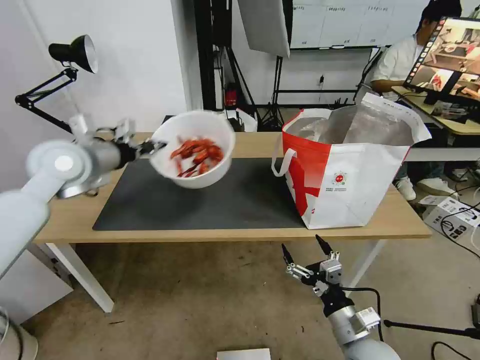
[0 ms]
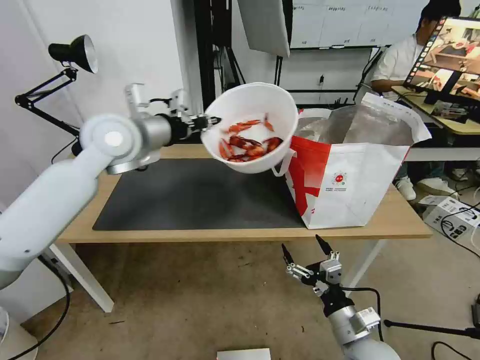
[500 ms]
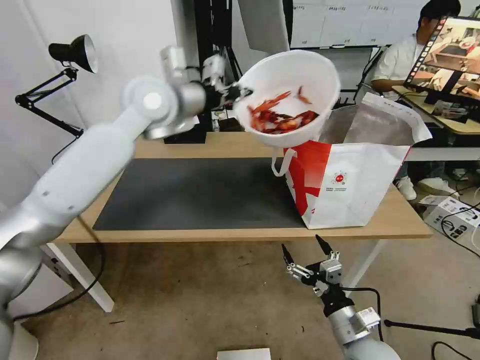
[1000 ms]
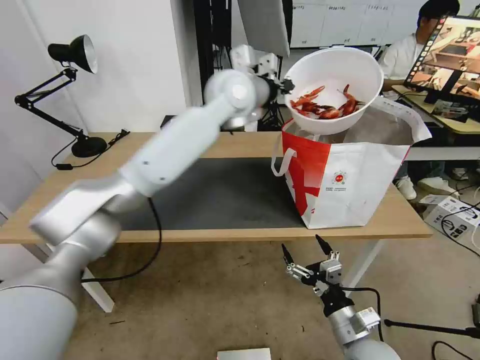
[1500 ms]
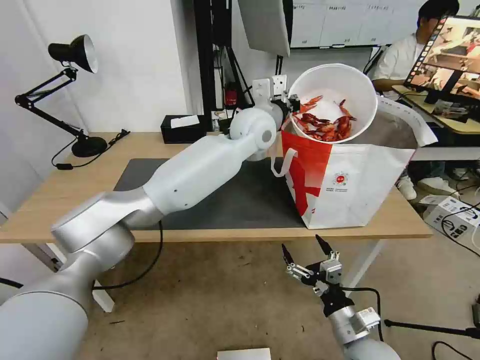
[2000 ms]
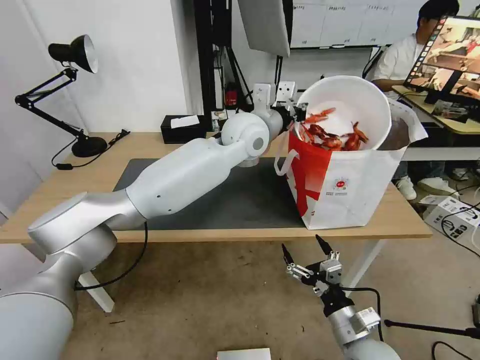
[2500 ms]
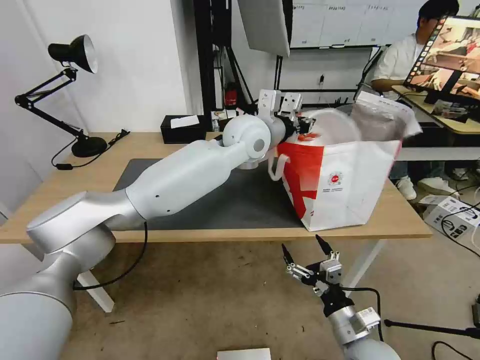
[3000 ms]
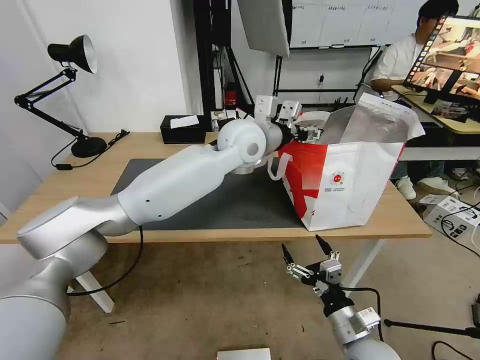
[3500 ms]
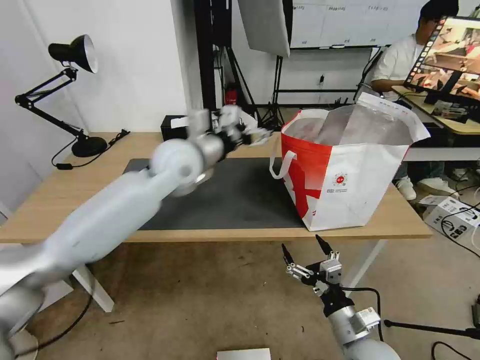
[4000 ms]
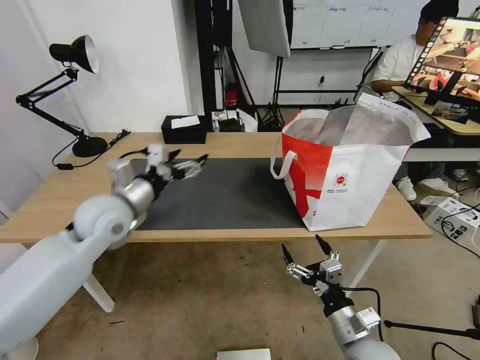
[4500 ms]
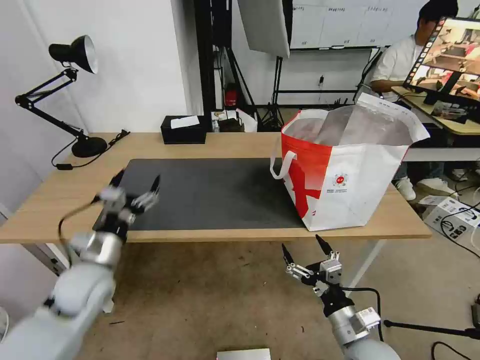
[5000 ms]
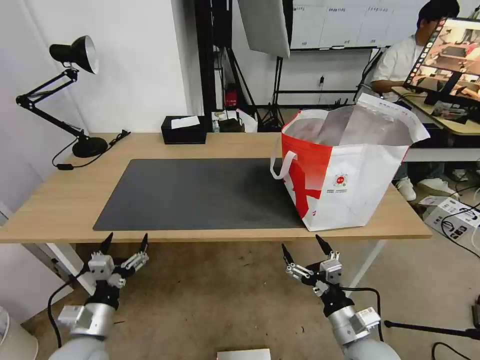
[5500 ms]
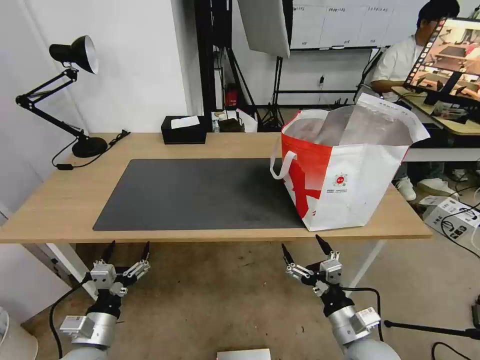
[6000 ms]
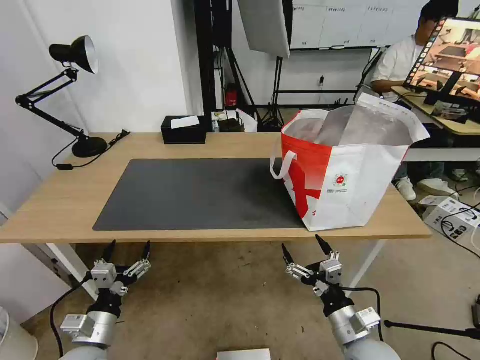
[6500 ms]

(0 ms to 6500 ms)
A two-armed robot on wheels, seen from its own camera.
Task of the whole recording: Pick up the trash from the table and place it into the takeout bag.
0 ms - 2000 ms: The left gripper is displaced to the right by about 35 cm.
2000 ms - 4500 ms: The left gripper is displaced to the left and backward by some 35 cm, and opens up.
4500 ms - 6500 ms: The left gripper heads backward and downward, covering approximately 30 cm.

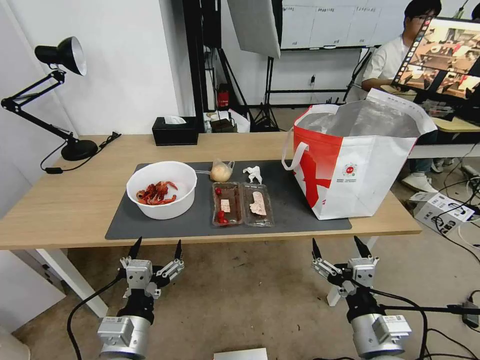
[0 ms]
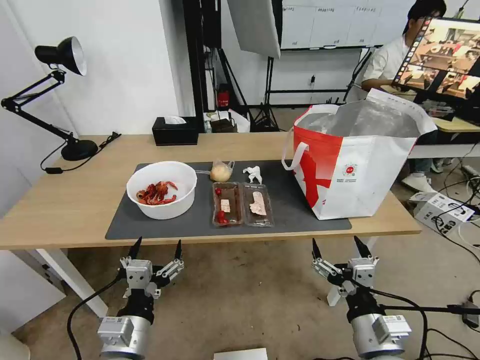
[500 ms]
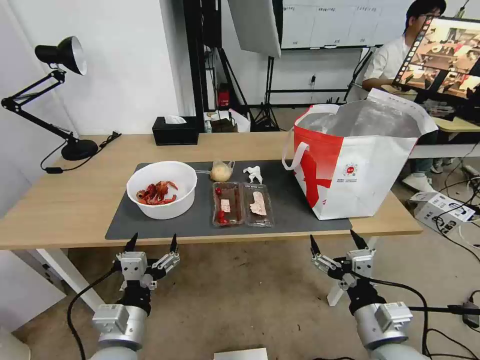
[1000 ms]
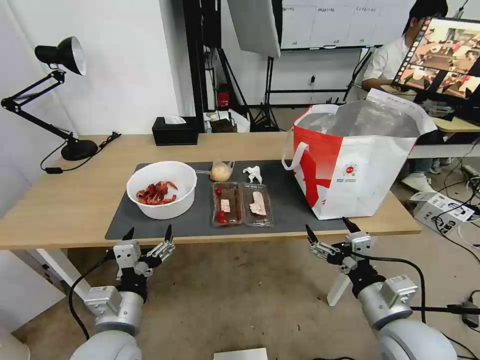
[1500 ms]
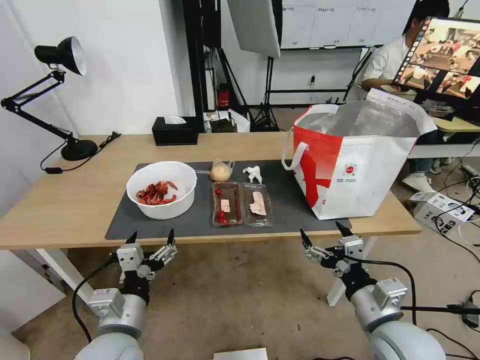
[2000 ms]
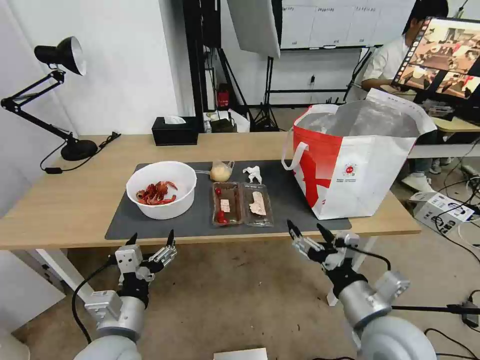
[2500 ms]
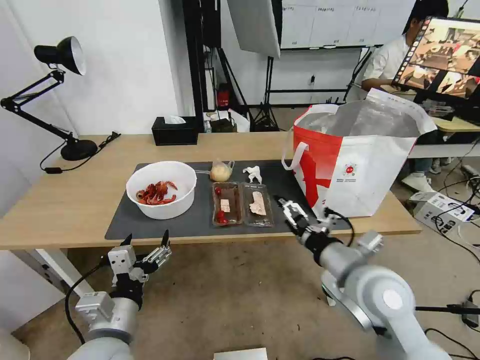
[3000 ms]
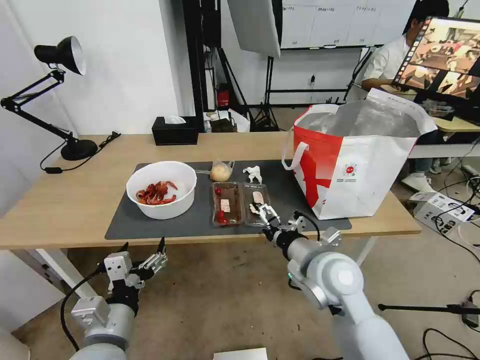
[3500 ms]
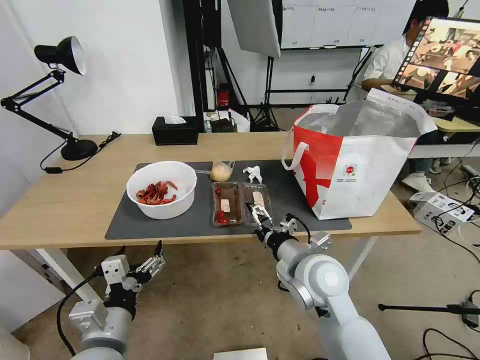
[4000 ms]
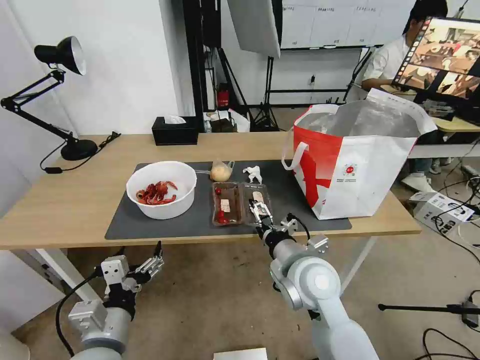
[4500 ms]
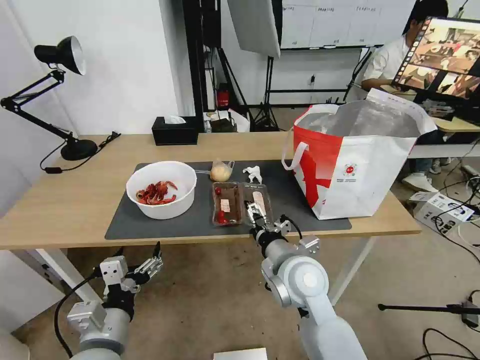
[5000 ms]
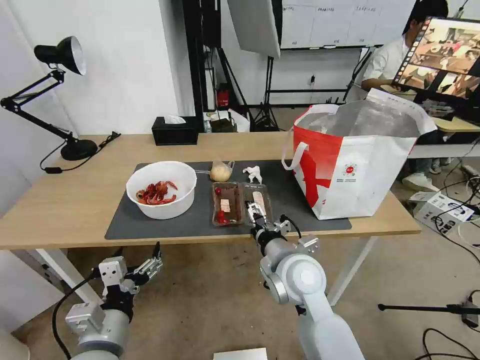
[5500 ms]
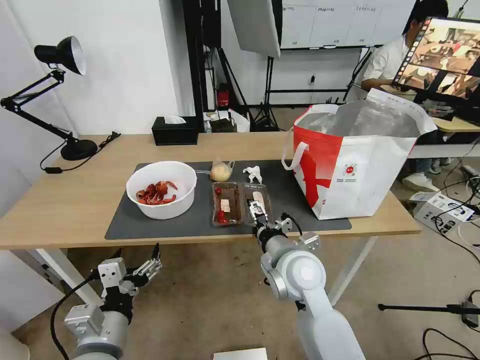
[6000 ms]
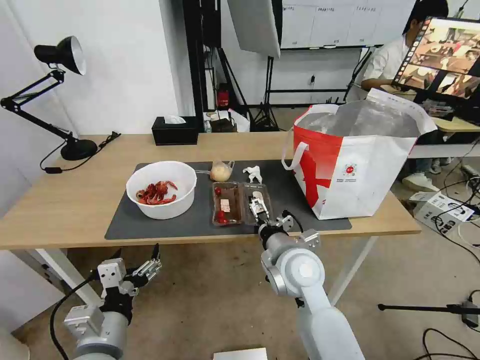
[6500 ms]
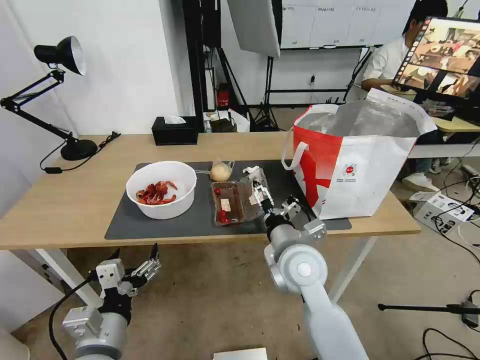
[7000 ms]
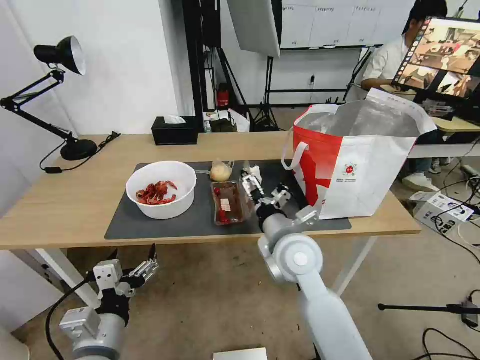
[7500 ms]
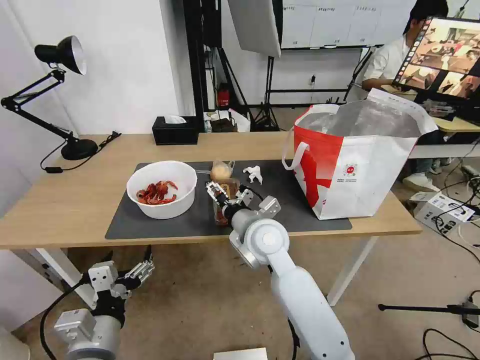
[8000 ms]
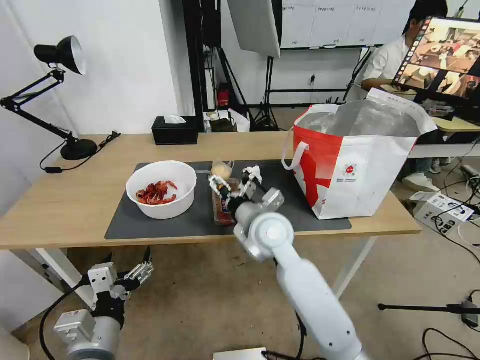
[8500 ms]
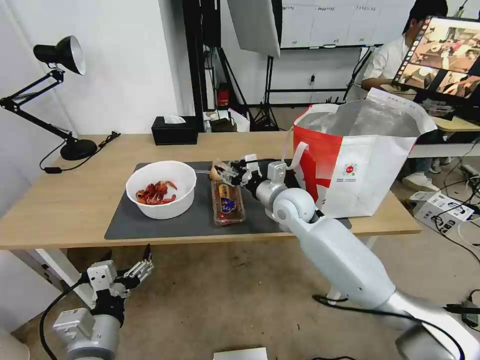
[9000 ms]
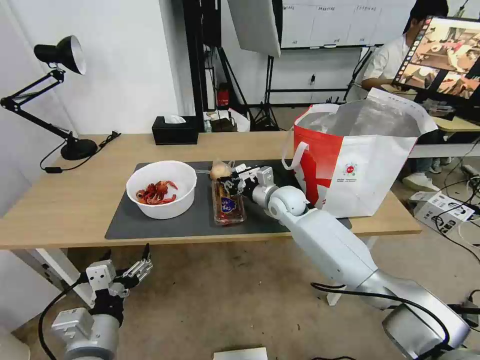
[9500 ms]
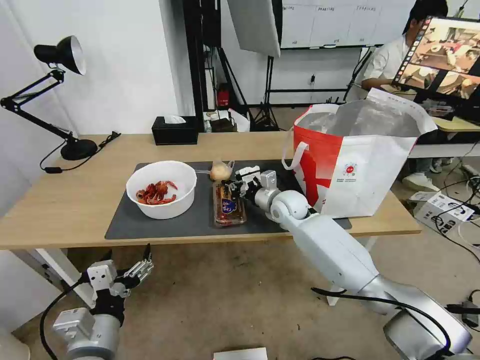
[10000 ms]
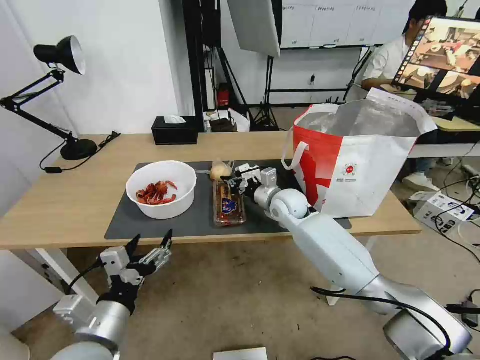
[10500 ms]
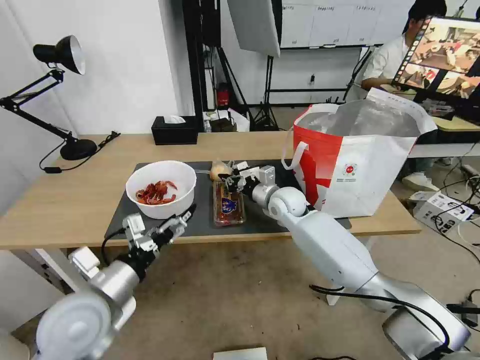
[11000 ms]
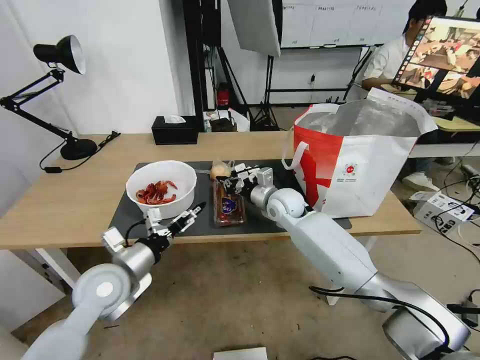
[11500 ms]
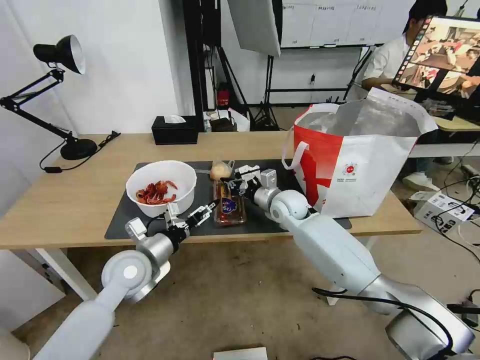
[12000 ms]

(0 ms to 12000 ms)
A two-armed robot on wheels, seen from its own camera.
Task of the whole recording: Pick up the trash from the table and place it into the takeout bag.
2000 ms - 4000 ms: The right gripper heads to the left and forward, covering about 15 cm.
4000 ms - 6000 ms: There are only small adjustments of the grippers.
6000 ms - 8000 ms: The right gripper heads forward and to the left, covering roughly 10 cm.
8000 ms - 10000 ms: The right gripper is displaced forward, to the right and downward by approximately 20 cm, and closes.
10000 ms - 12000 ms: The left gripper is displaced forward by roughly 20 cm.

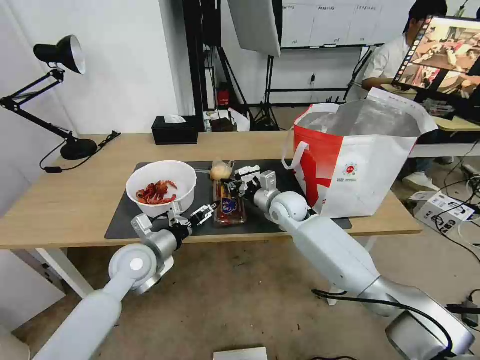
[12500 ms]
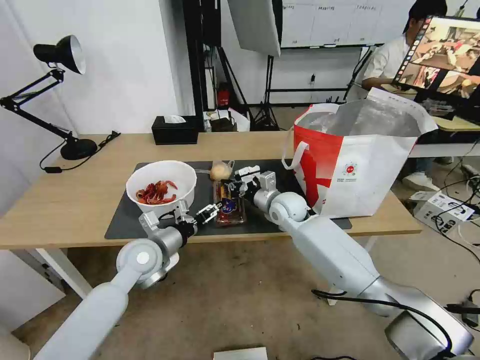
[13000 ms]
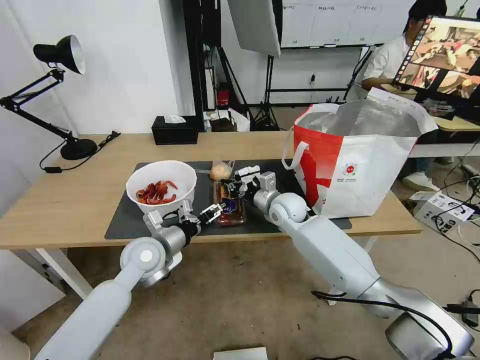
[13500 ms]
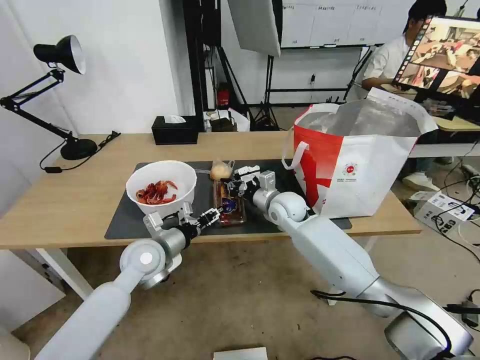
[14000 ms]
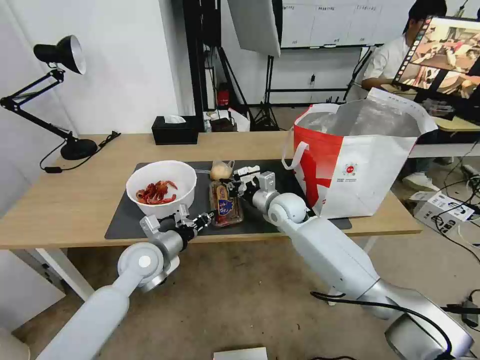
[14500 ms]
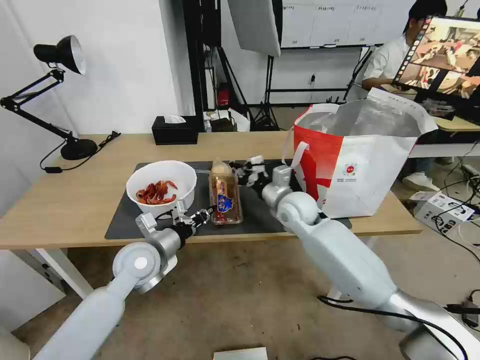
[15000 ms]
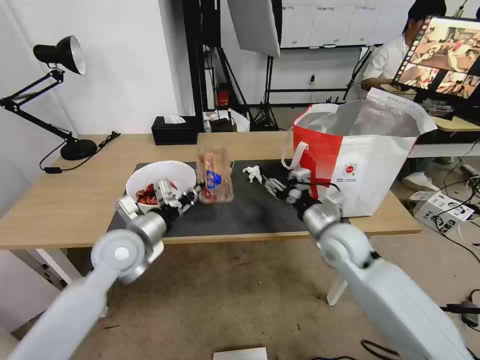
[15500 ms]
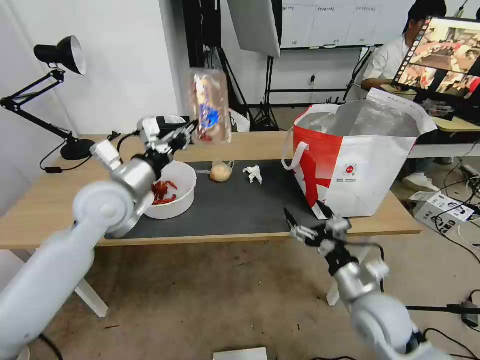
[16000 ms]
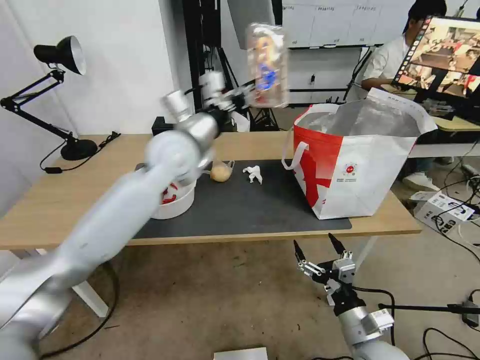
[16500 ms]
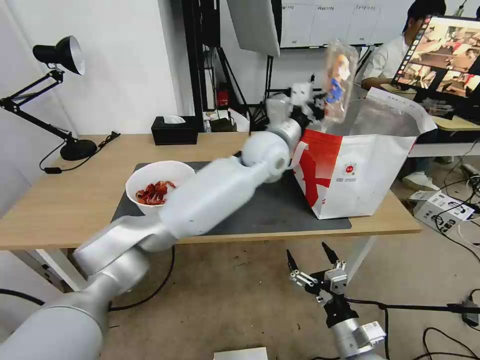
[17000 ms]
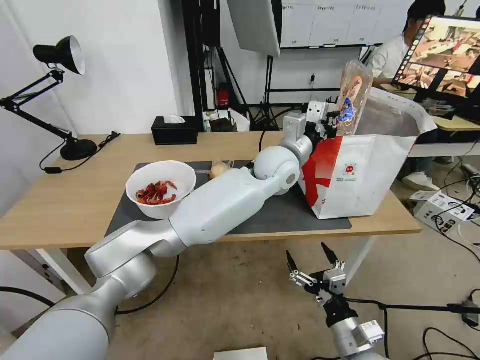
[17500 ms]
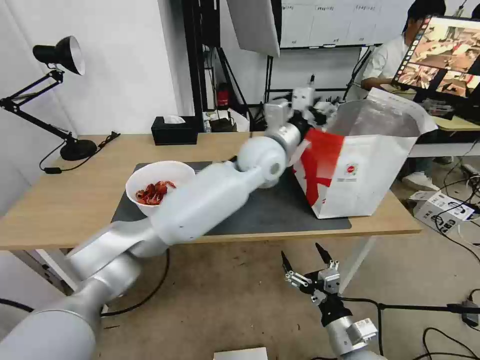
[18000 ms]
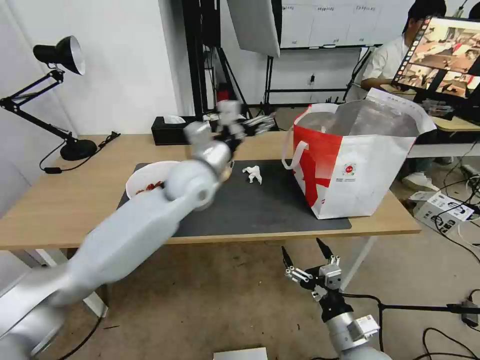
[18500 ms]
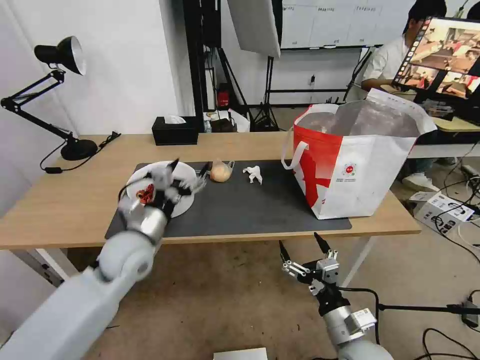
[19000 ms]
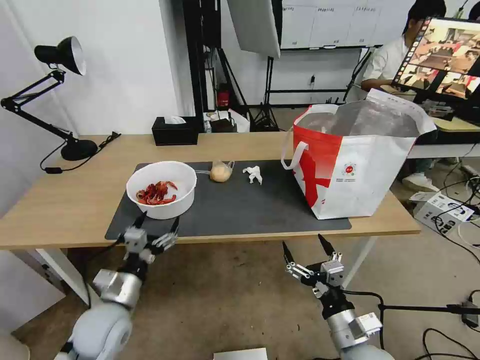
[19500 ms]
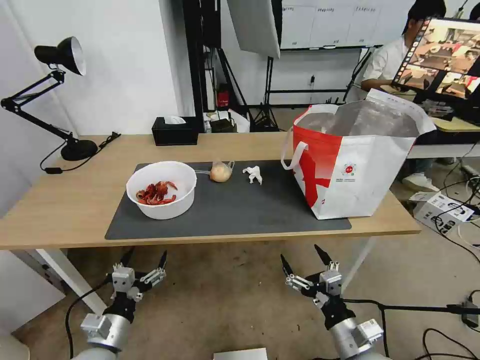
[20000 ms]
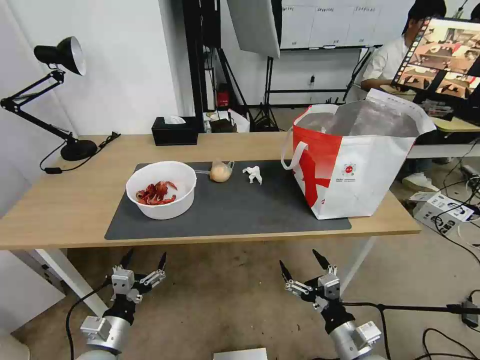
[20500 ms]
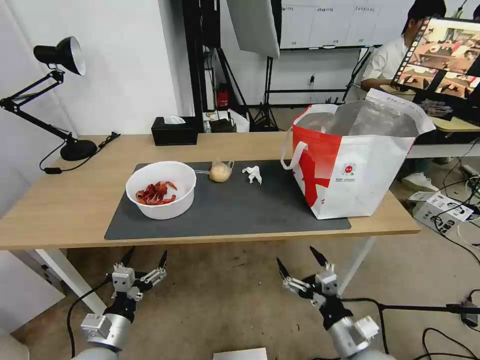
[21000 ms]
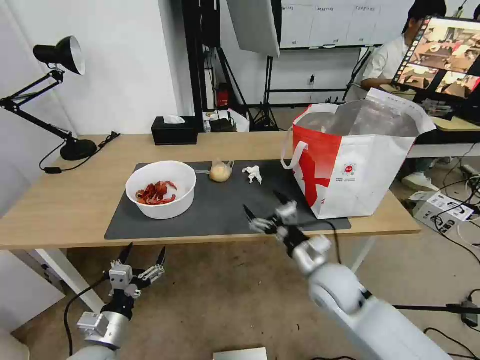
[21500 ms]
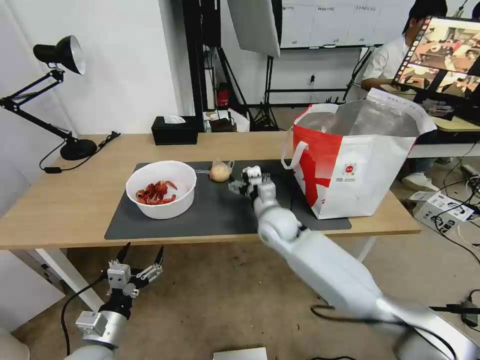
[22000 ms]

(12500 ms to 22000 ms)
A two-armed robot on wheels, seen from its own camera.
Task of the whole recording: Pick up the trash from the table and place it into the takeout bag.
12500 ms - 14500 ms: The left gripper closes.
14500 ms - 16500 ms: The left gripper travels upward, forward and to the right by roughly 25 cm; the right gripper moves backward, roughly 35 cm, and opens its fingers.
16500 ms - 18000 ms: The left gripper moves to the right, about 15 cm, and opens.
18000 ms - 20000 ms: The left gripper travels to the left, backward and downward by about 60 cm, and opens its fingers.
20000 ms - 22000 ms: The right gripper moves forward and to the left, roughly 35 cm.
